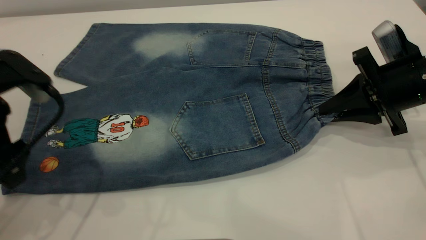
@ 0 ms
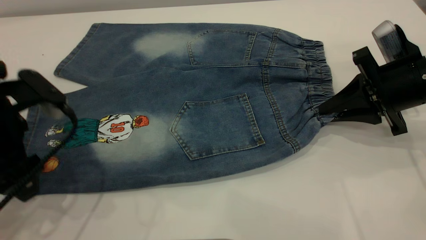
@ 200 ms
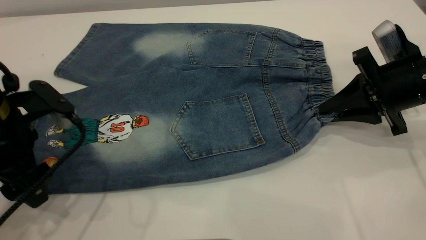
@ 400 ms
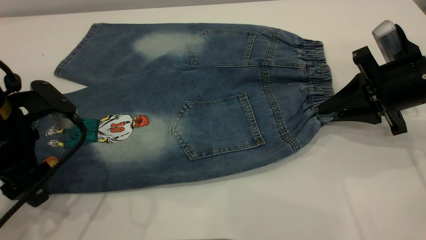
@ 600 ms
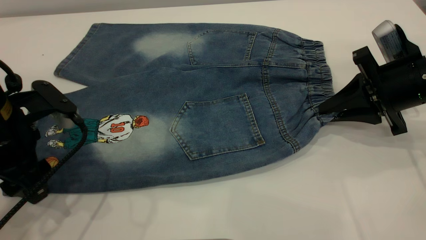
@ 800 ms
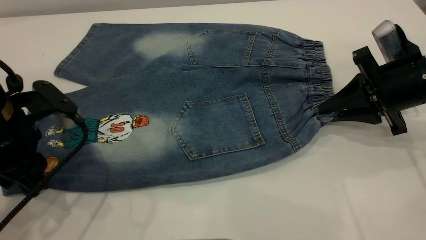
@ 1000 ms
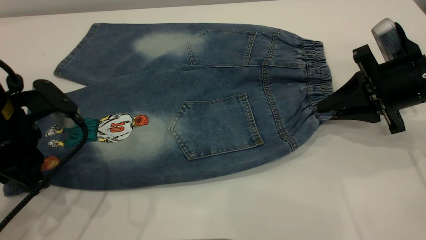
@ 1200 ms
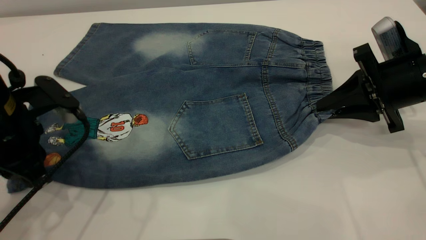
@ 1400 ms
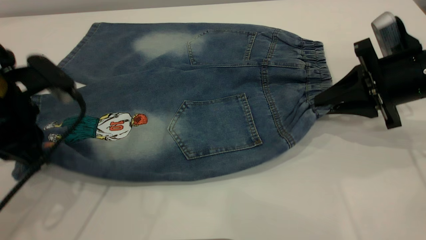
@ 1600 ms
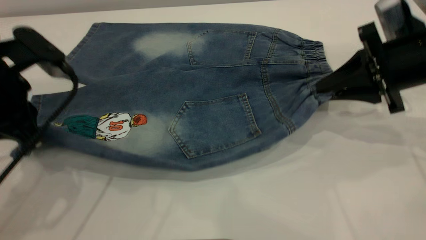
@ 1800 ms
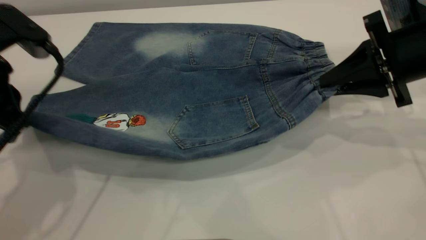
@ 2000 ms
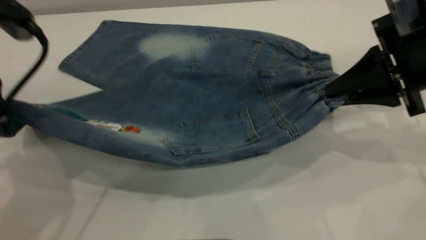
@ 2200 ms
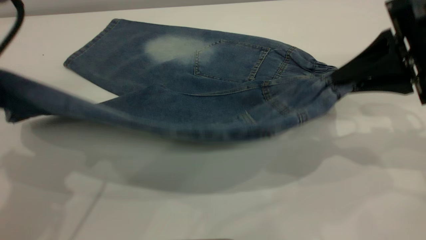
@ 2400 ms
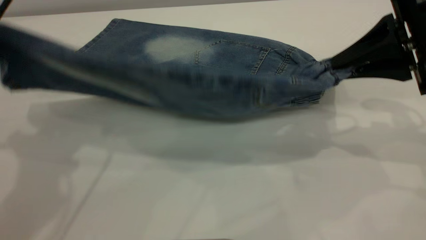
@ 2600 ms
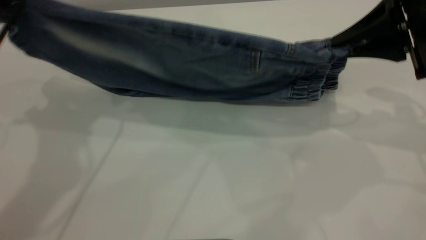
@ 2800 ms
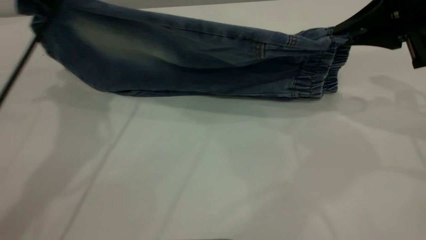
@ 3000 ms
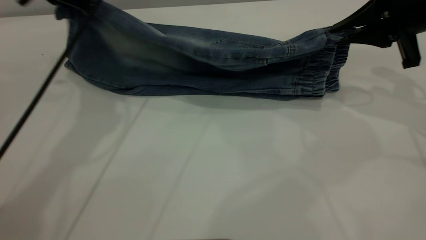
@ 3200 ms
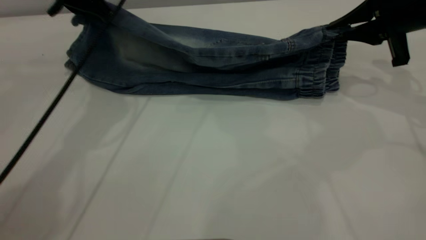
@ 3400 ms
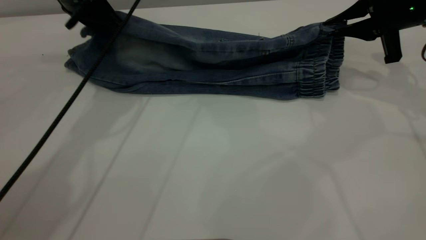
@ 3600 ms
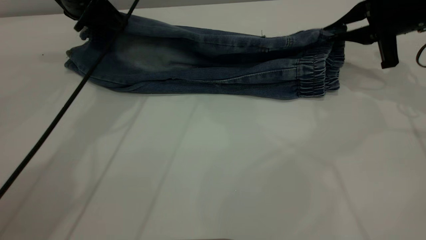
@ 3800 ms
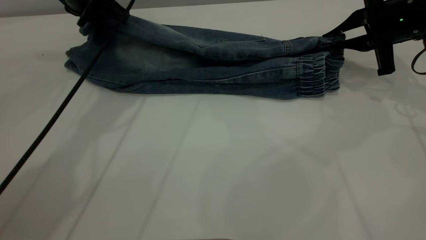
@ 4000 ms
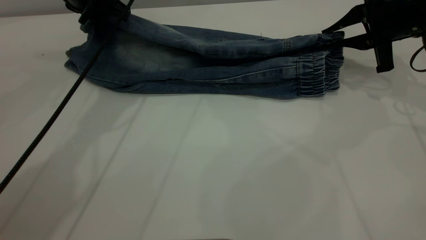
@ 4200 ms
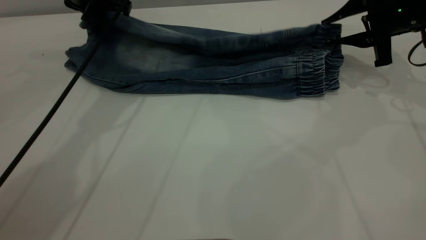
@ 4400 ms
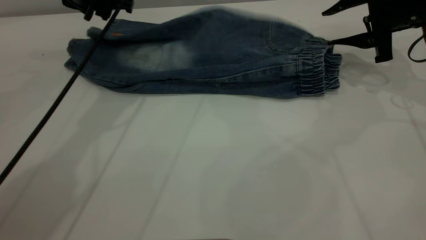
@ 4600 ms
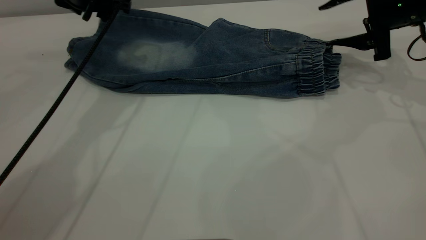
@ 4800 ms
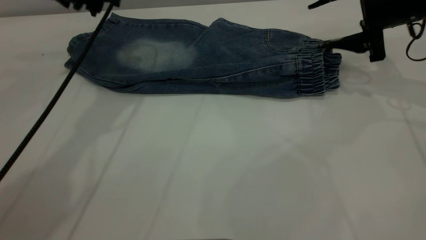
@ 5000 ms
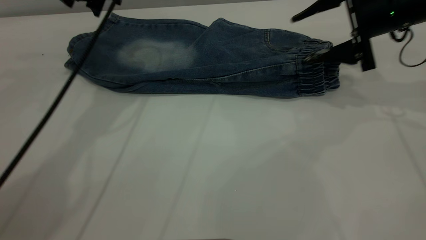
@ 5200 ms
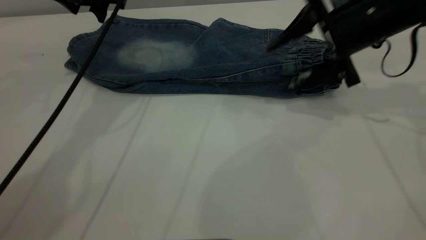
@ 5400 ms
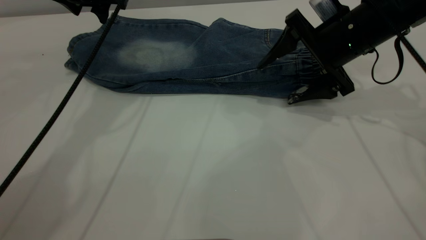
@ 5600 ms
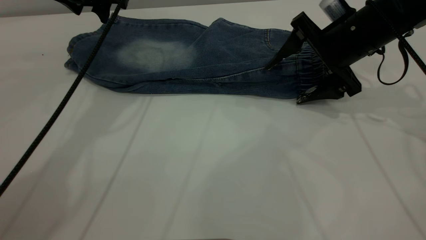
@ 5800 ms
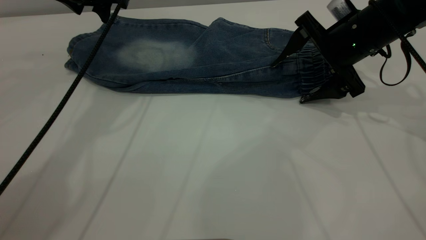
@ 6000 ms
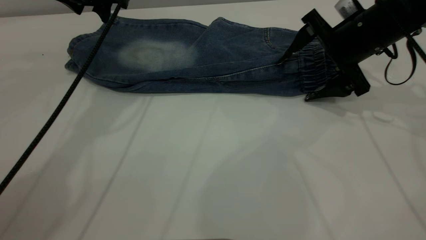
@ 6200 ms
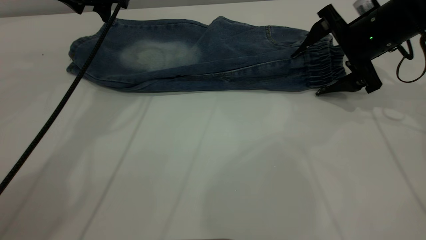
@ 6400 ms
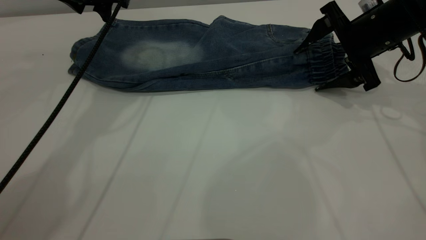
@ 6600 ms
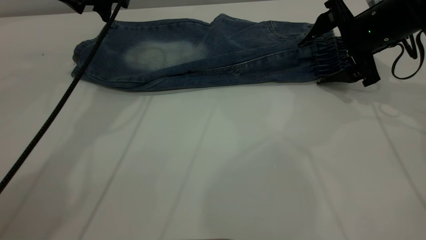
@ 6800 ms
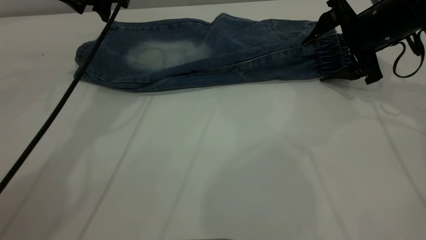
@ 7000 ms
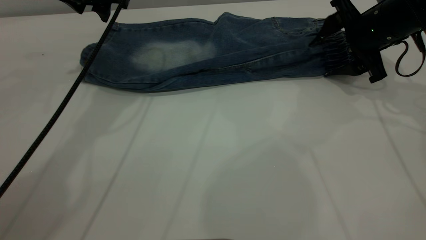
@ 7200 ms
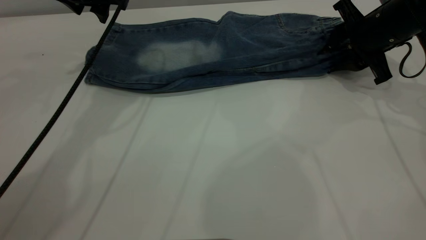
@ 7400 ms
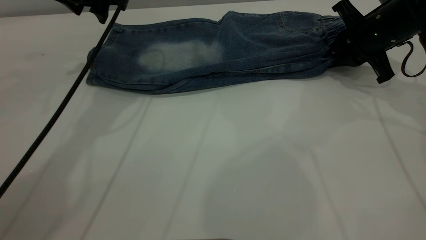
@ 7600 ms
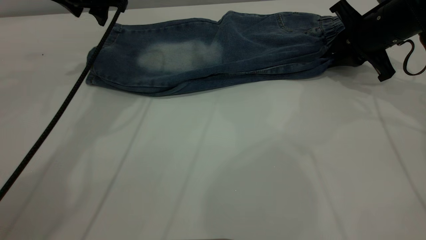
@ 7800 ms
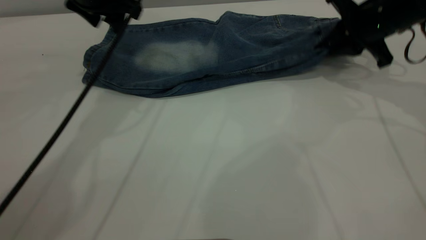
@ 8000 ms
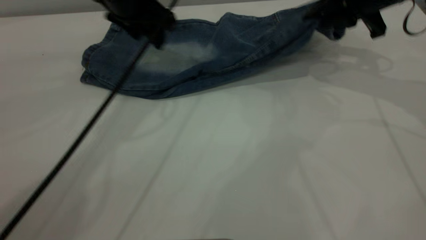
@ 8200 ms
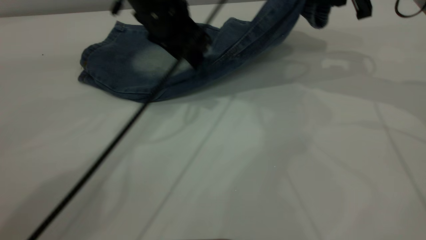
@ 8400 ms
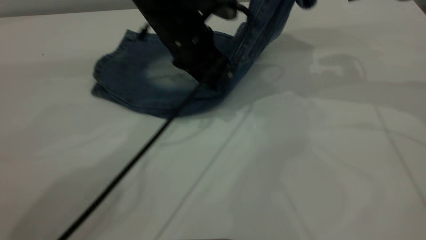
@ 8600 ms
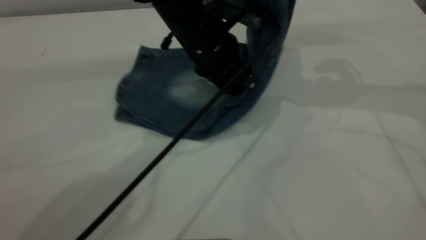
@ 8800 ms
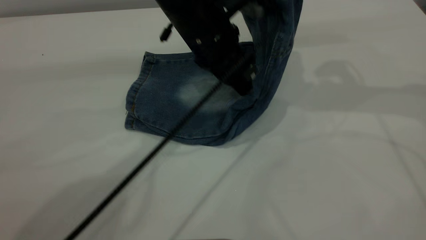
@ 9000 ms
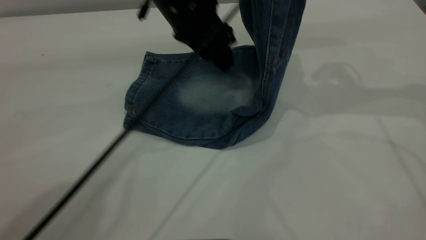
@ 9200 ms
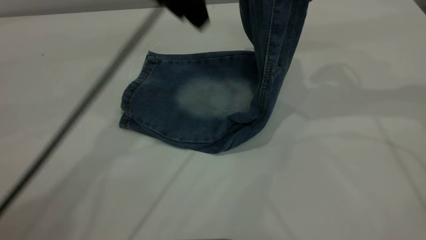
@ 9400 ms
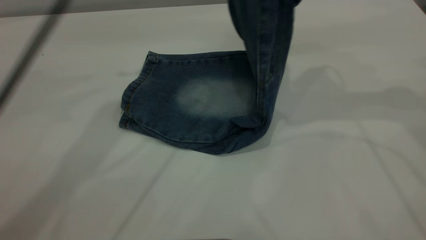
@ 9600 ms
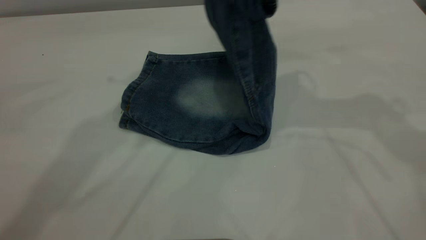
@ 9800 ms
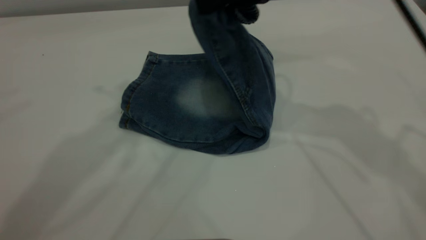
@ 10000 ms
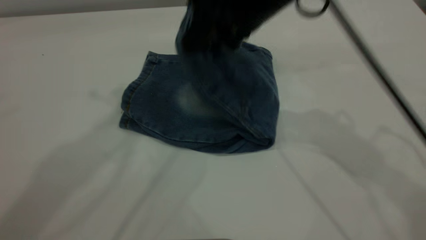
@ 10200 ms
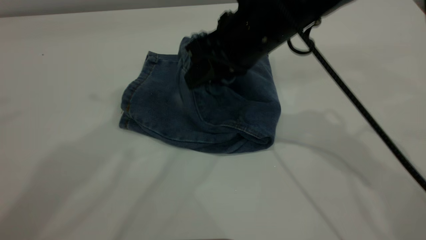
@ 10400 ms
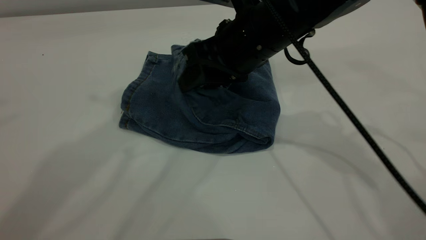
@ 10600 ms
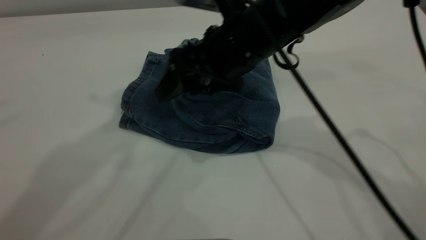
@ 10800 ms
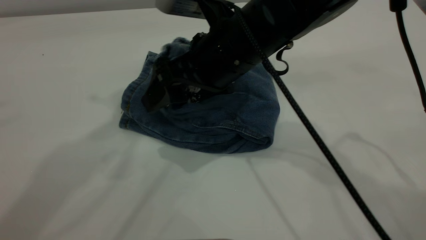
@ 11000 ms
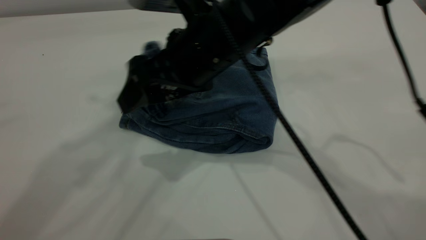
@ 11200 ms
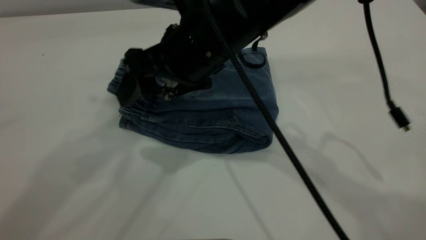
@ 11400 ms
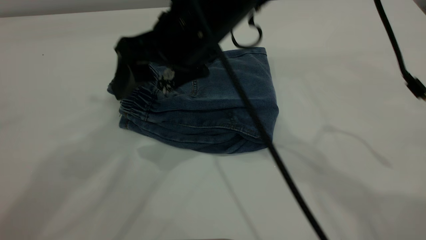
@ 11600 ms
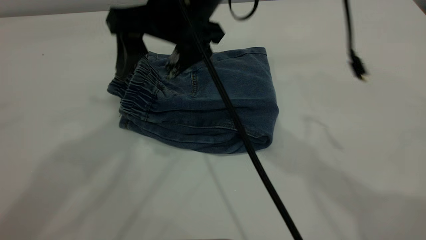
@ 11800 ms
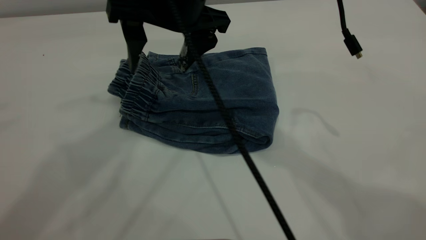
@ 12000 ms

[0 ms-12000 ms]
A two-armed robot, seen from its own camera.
Step, 0 ms to 4800 ms: Fold the bottom of the pants upward.
Step, 5000 ms to 11800 ms: Fold your pants from right to left.
0 ms to 1600 ms: The left gripper closes its fingers.
1600 ms to 3000 ms: The left gripper is displaced upward and forward by roughly 15 cm. The right gripper moves upward, about 10 cm.
3000 ms to 4400 ms: Both grippers move forward and downward, roughly 10 cm. The right gripper opens up.
4400 ms to 6000 ms: The left gripper opens up, while the right gripper travels to the left by roughly 10 cm, and opens up.
6000 ms to 7600 ms: The right gripper travels to the right by some 5 cm, and closes up.
7600 ms to 9000 ms: The right gripper moves upward, approximately 15 cm. The left gripper moves to the right and backward, roughly 15 cm.
9000 ms to 10400 ms: The left gripper goes some 35 cm upward and to the left, while the right gripper travels to the left and downward by roughly 20 cm.
10400 ms to 12000 ms: The right gripper moves to the left and upward, about 10 cm, and opens its fingers.

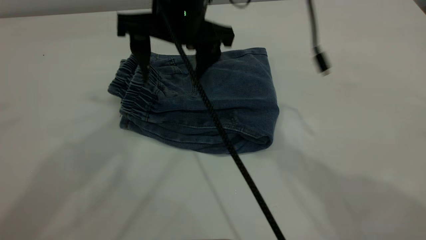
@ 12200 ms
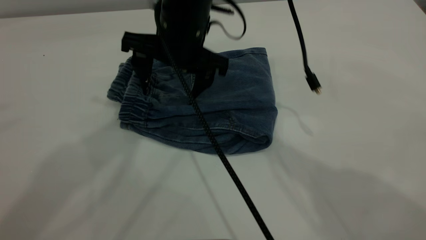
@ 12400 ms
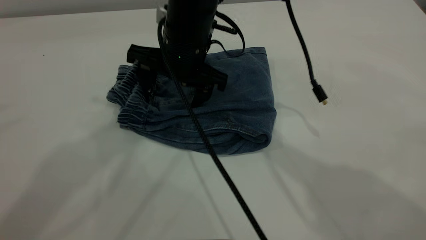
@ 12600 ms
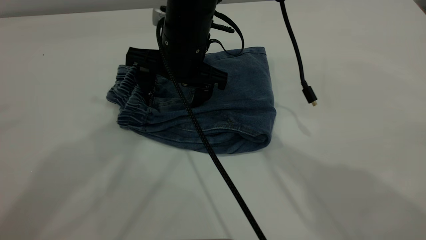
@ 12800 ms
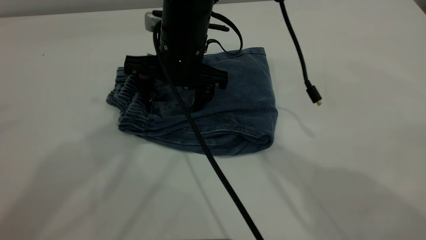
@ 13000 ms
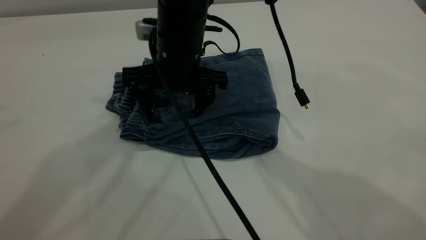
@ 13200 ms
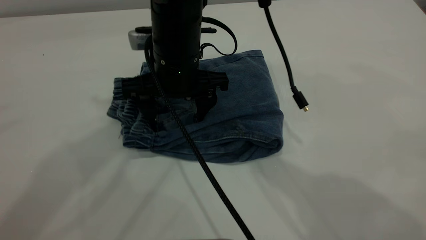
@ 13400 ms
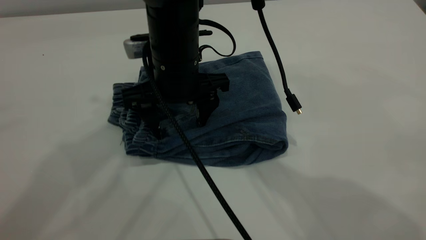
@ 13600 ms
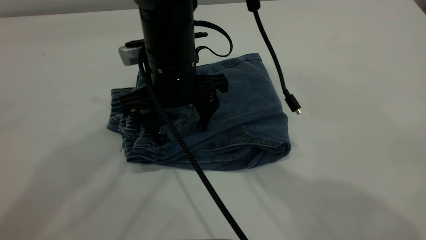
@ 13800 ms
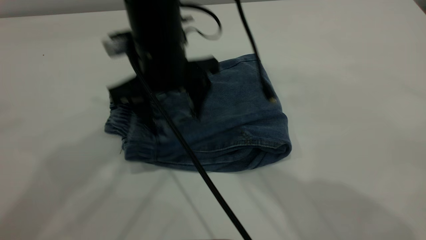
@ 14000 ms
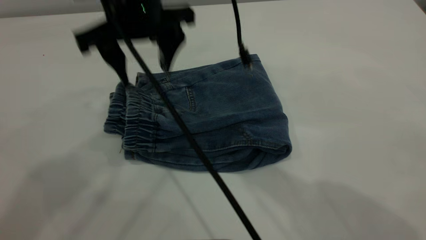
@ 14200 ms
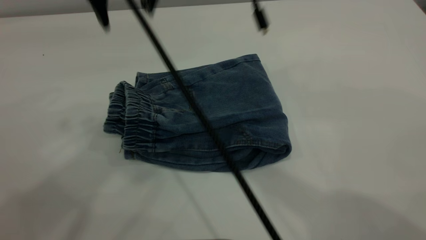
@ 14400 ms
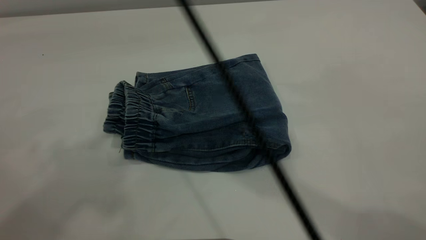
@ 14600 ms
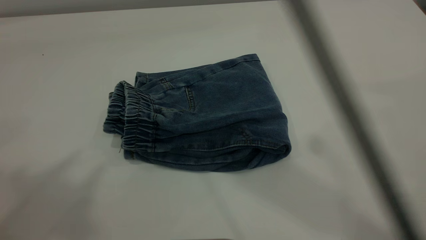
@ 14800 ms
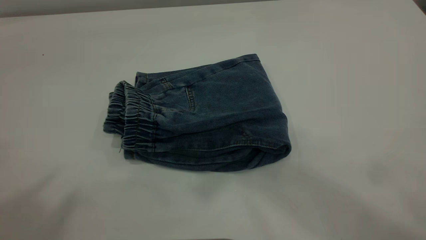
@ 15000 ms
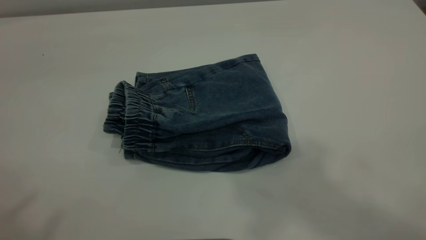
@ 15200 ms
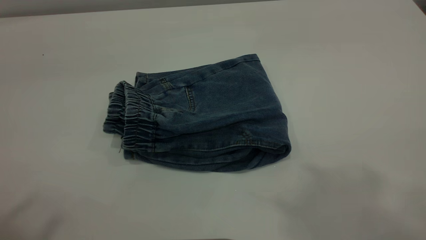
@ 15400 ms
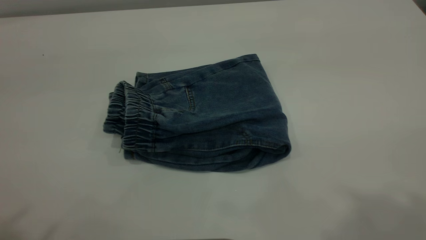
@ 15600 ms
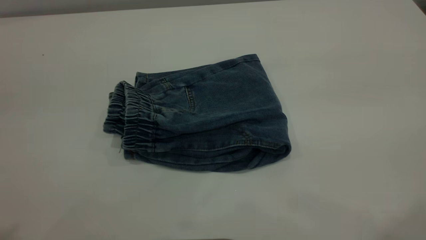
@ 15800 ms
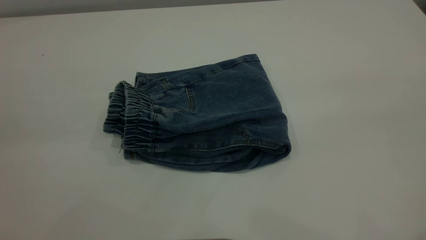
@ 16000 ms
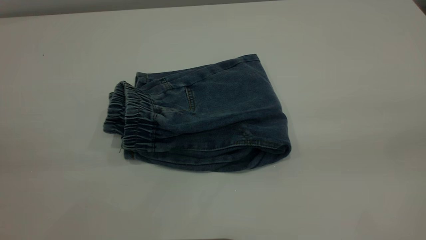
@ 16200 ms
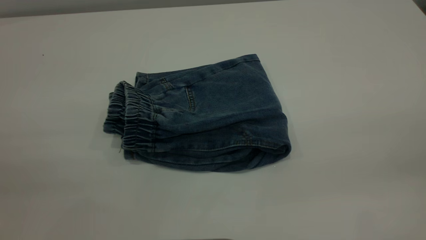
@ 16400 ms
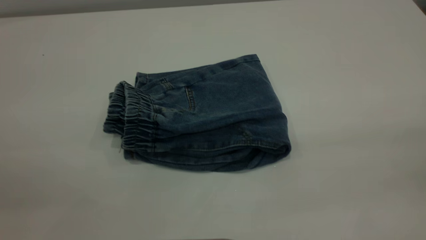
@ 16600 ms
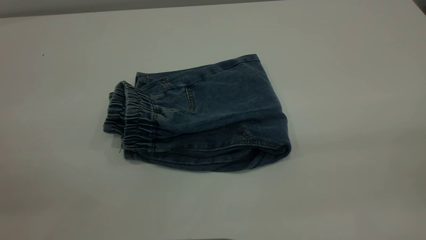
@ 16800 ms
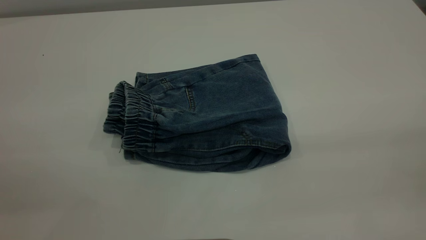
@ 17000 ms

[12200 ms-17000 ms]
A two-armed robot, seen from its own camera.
12200 ms to 13800 ms: The right gripper shifts some 5 cm downward.
13800 ms to 15400 ms: The right gripper heads upward, to the right and backward, covering some 50 cm, while the left gripper shifts roughly 25 cm backward, to the left and upward.
